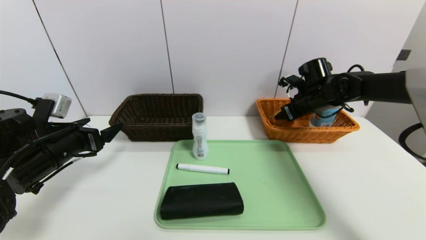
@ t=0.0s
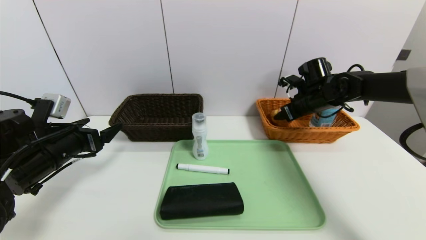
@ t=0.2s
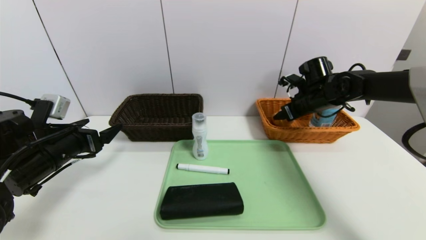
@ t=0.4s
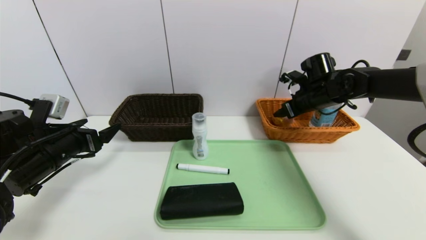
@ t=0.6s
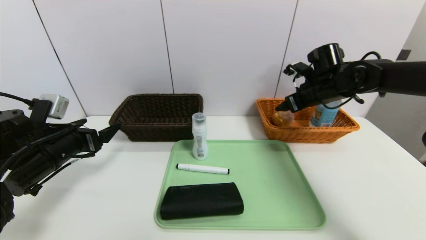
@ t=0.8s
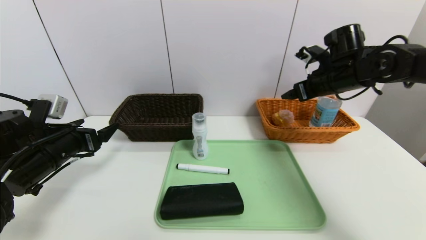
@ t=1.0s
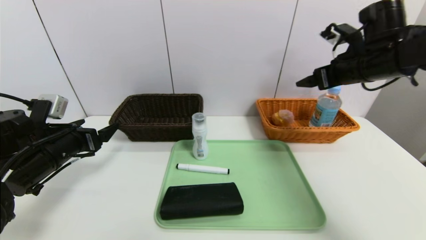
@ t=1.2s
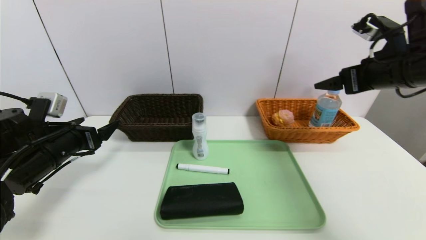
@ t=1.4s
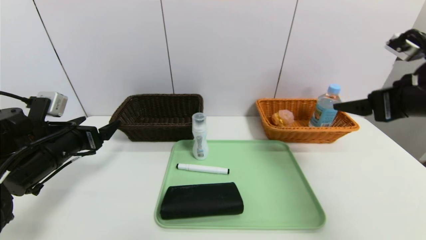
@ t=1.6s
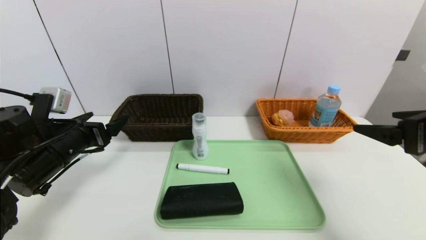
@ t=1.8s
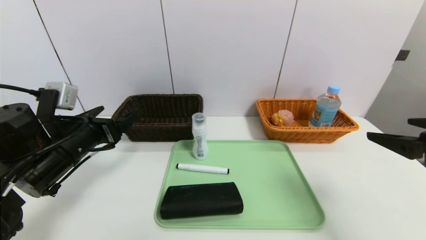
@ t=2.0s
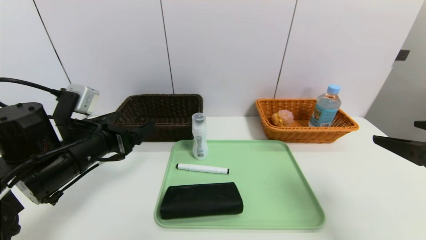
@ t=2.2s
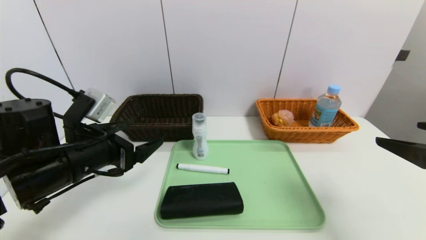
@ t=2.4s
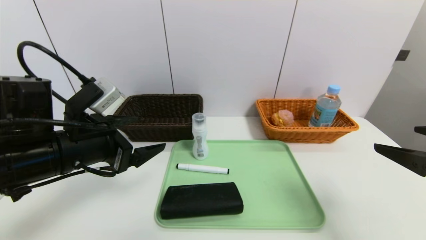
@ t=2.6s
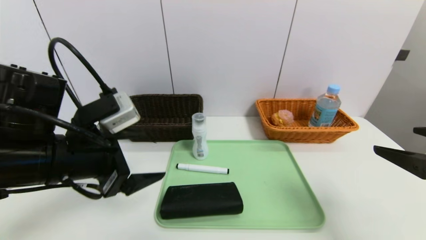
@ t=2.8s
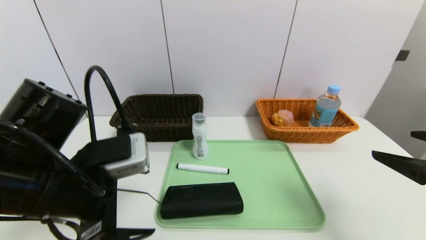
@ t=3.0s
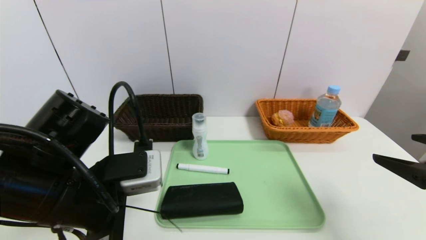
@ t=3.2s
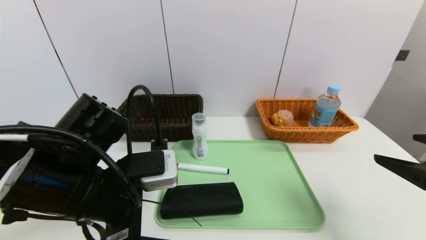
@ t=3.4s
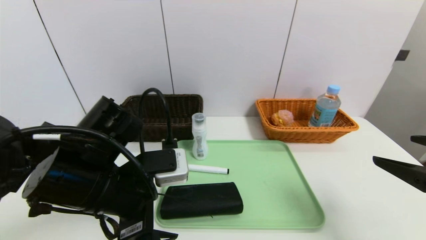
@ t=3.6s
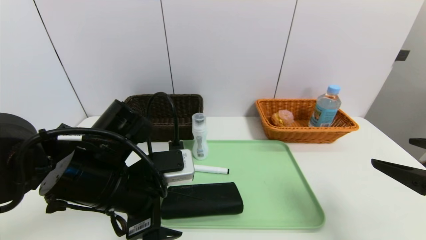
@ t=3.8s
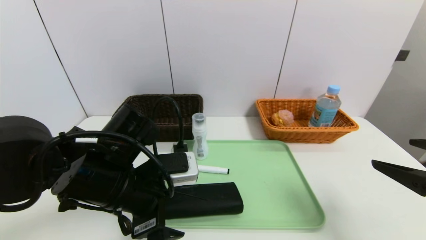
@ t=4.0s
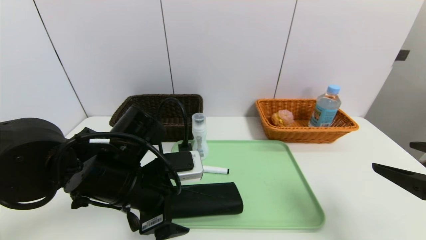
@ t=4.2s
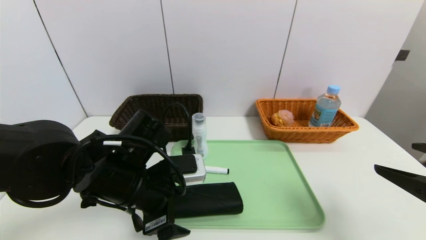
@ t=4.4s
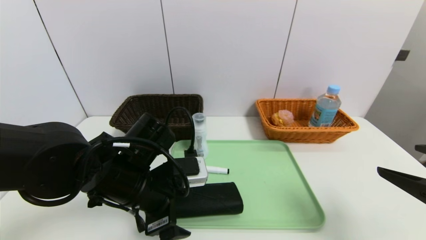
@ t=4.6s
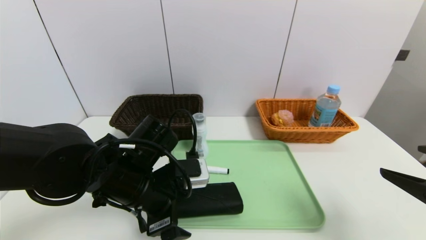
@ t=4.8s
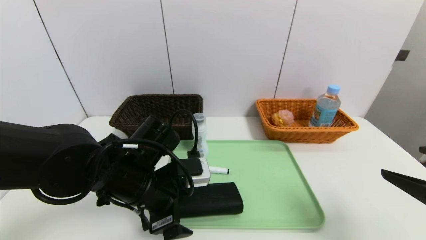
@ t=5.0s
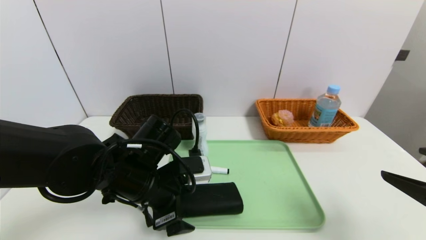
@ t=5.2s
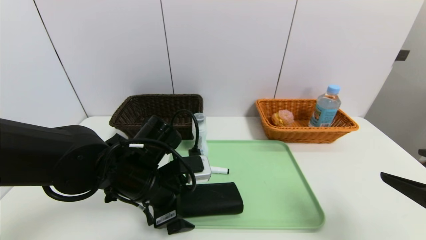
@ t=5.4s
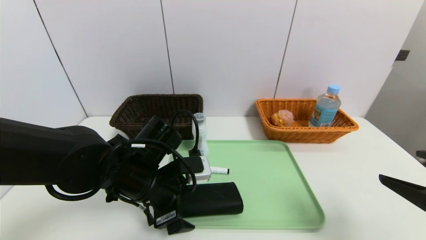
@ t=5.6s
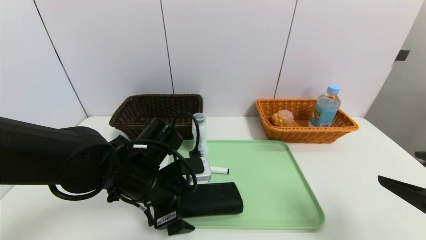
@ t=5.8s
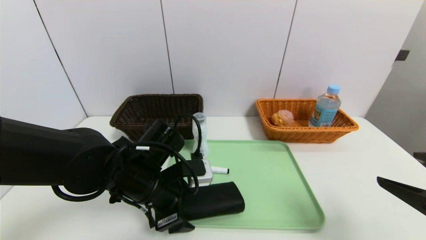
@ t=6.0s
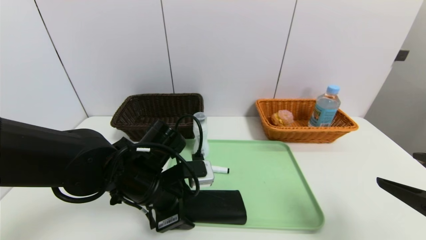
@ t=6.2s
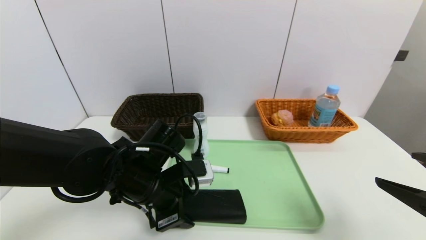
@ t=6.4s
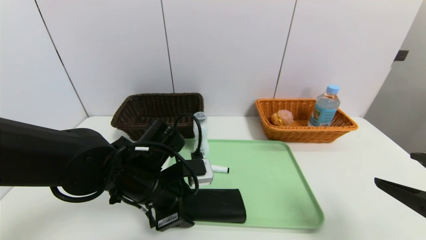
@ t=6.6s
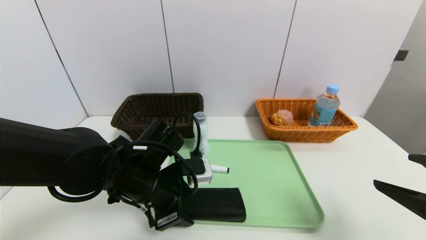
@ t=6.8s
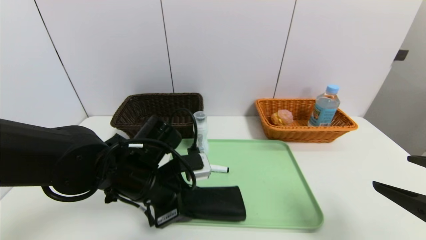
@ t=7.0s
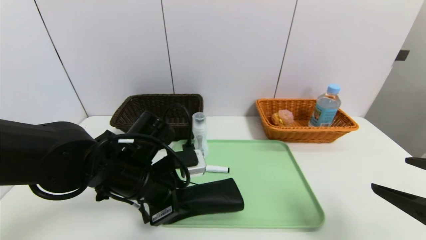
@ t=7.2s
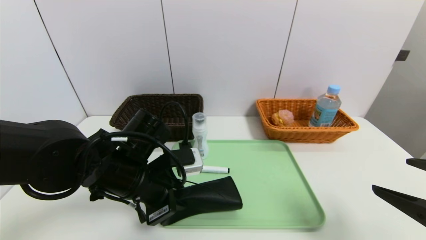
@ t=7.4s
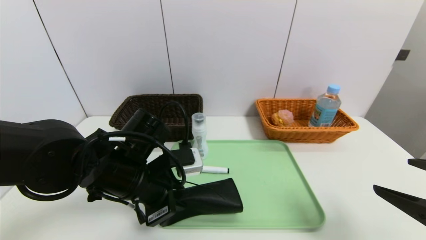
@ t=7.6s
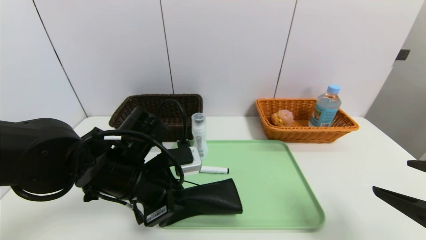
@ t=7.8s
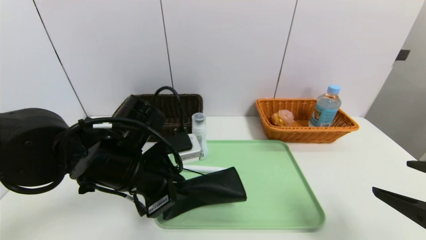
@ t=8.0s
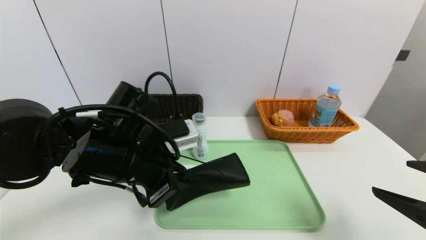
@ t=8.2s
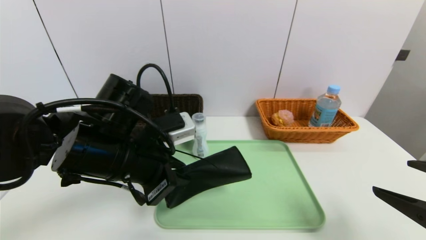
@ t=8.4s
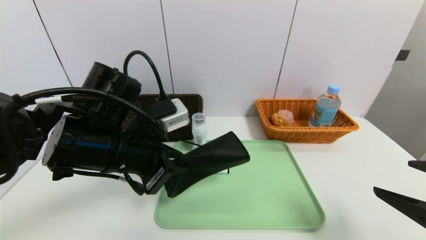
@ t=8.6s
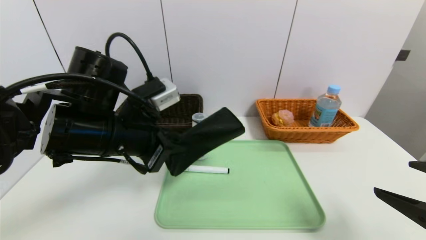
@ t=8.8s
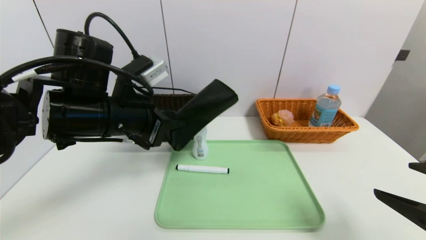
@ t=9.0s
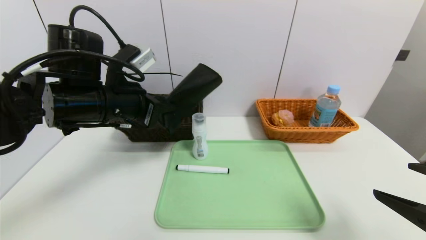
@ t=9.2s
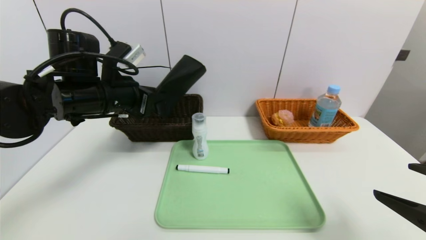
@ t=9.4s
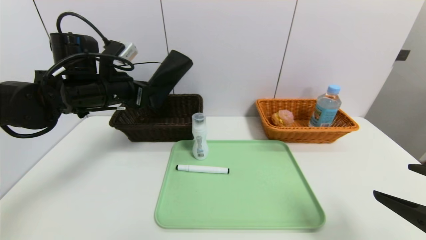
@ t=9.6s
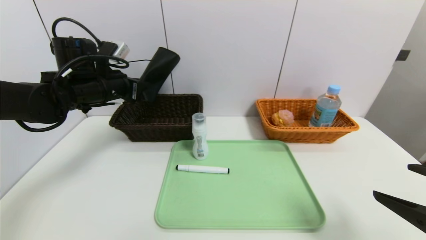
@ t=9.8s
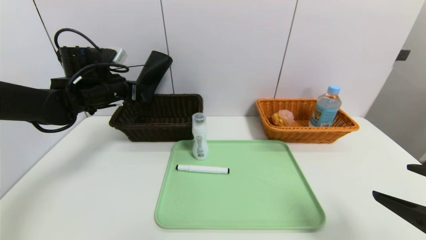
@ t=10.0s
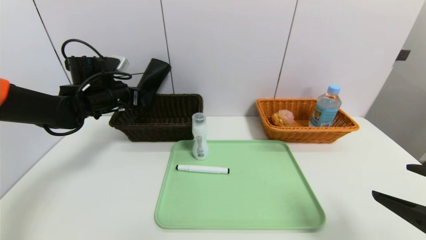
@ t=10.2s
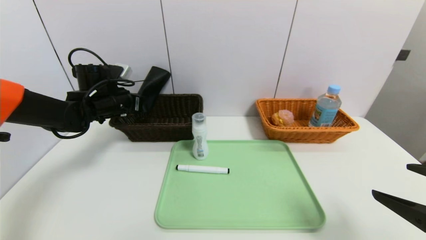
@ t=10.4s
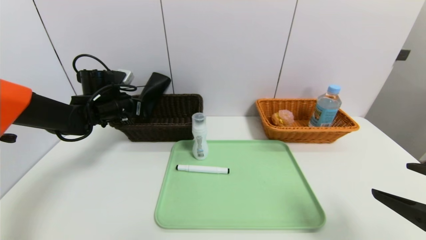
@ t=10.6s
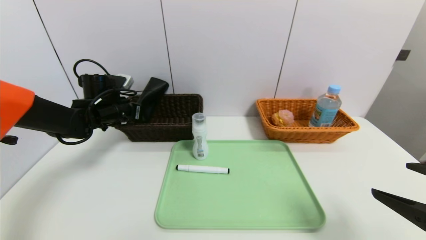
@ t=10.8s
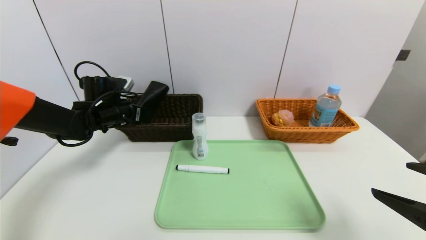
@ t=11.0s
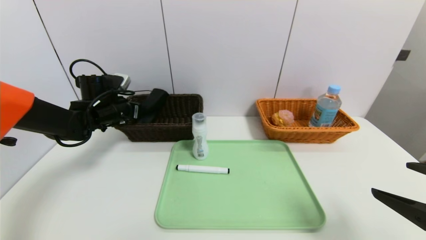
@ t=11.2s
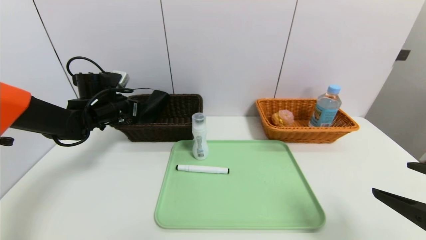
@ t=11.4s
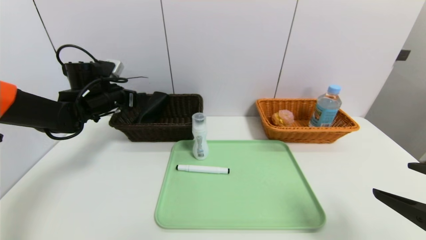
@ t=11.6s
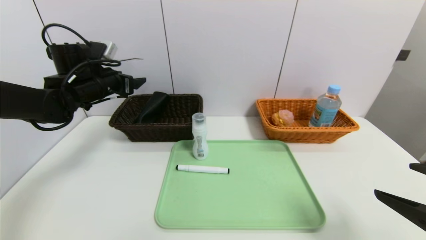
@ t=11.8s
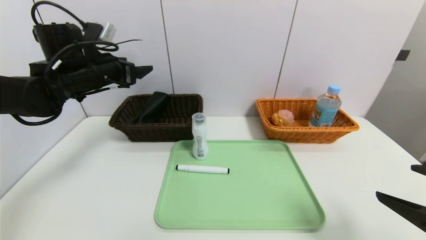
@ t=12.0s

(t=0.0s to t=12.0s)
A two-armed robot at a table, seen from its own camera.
Task of the whole recording: place the food in the right basket with the right gripper, and place the non food items in the left basket with the left gripper.
Step, t=1.0s - t=11.6s: Grasp the glasses case and put it in the left basket.
t=0.0s - t=1.6s: The right gripper is displaced backward and upward by roughly 25 cm.
t=1.6s - t=3.0s: The left gripper goes about 15 cm to the right, backward and upward. The right gripper goes about 10 cm backward.
t=3.0s - t=4.4s: The left gripper travels to the right, downward and forward by some 10 cm.
t=4.4s - t=6.0s: There are only small adjustments of the grippers.
t=6.0s - t=7.6s: The left gripper closes.
t=7.6s - t=9.0s: The left gripper goes some 10 cm upward.
t=9.0s - t=10.4s: The left gripper goes approximately 20 cm forward, to the left and downward.
t=10.4s - t=12.0s: The left gripper moves upward and backward, roughly 10 cm, and opens.

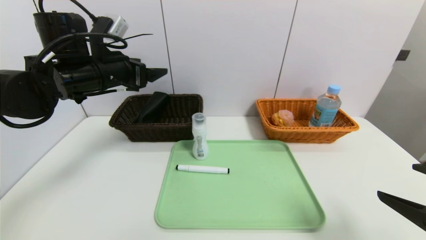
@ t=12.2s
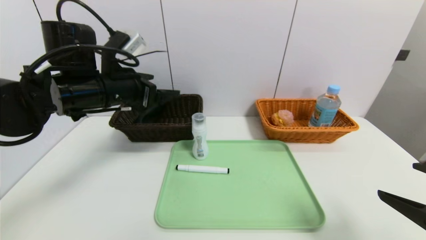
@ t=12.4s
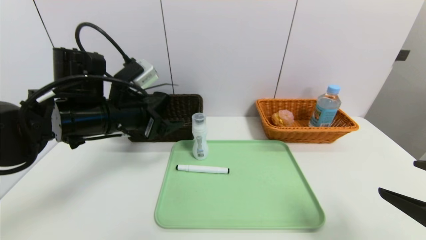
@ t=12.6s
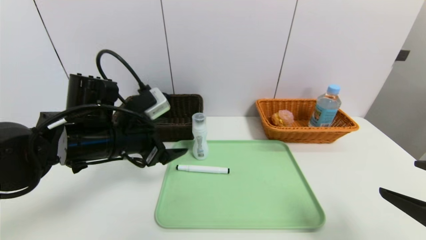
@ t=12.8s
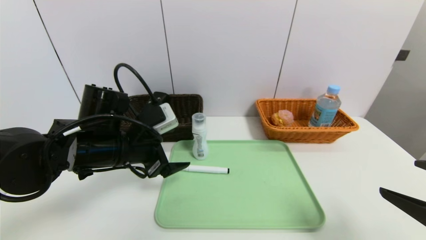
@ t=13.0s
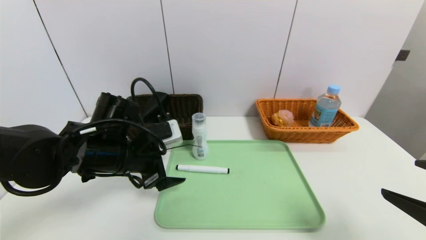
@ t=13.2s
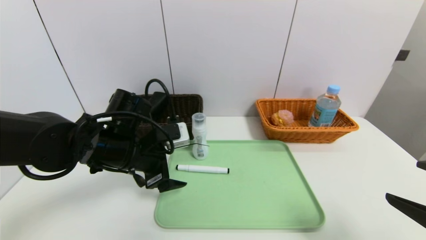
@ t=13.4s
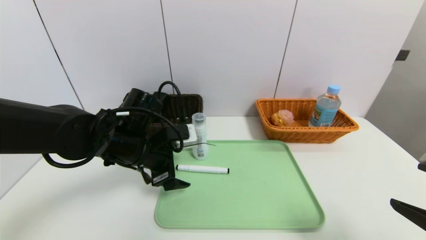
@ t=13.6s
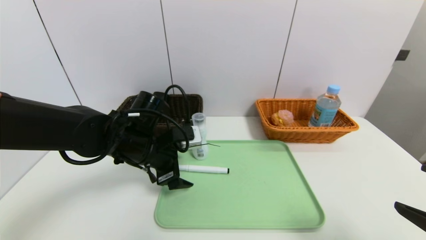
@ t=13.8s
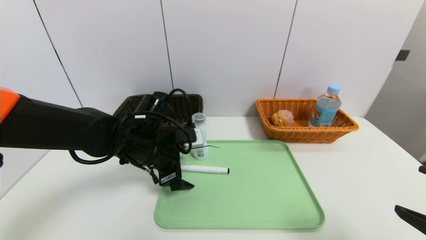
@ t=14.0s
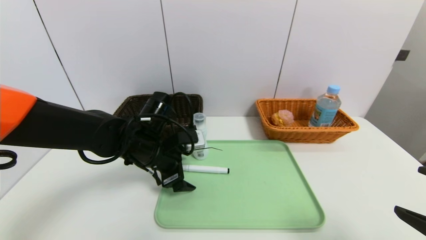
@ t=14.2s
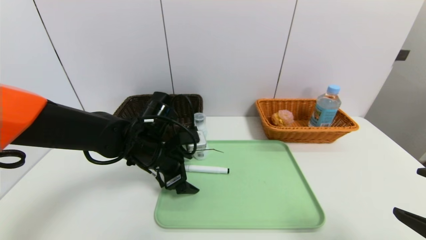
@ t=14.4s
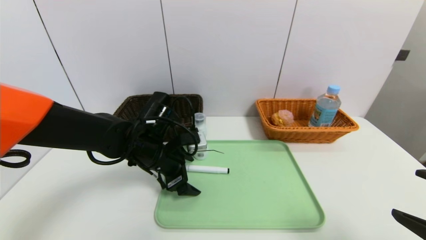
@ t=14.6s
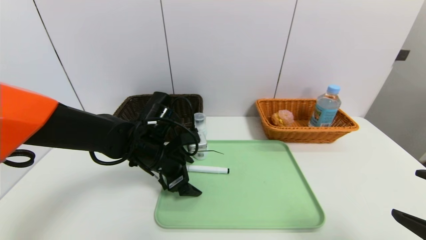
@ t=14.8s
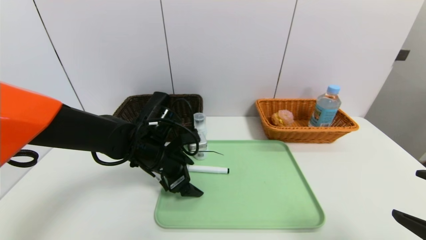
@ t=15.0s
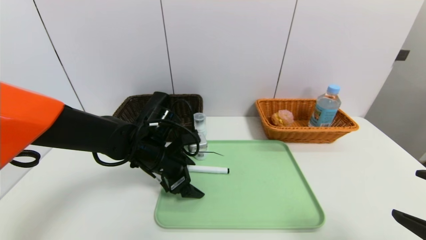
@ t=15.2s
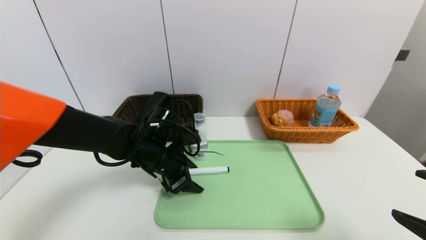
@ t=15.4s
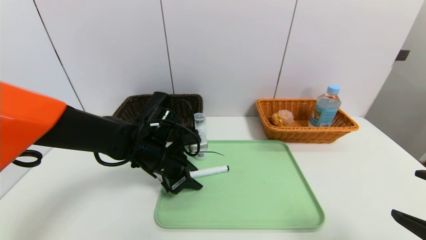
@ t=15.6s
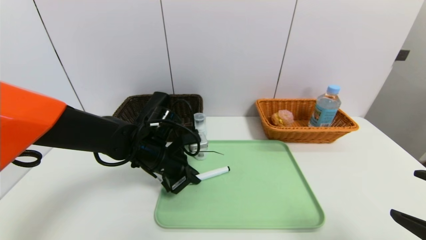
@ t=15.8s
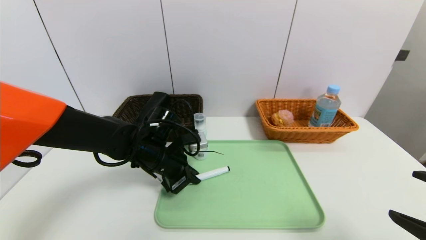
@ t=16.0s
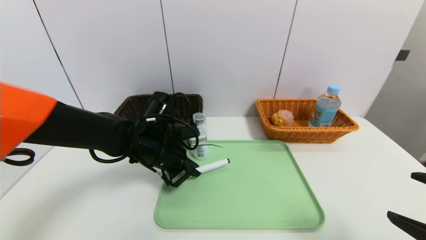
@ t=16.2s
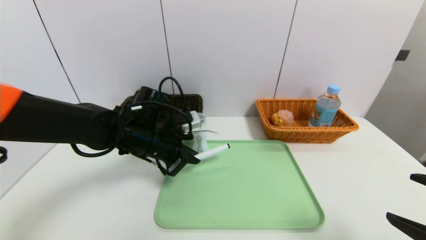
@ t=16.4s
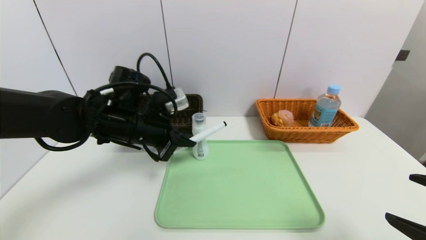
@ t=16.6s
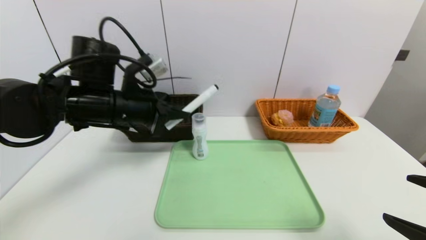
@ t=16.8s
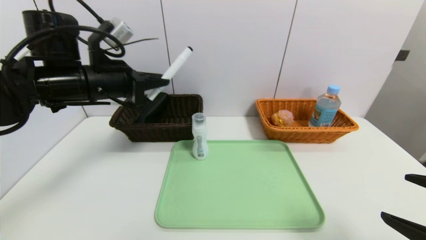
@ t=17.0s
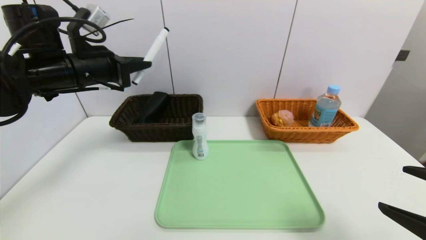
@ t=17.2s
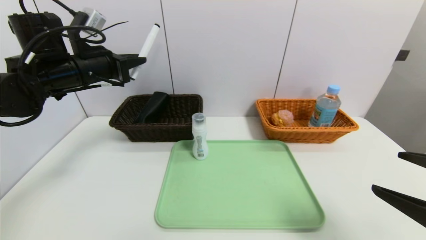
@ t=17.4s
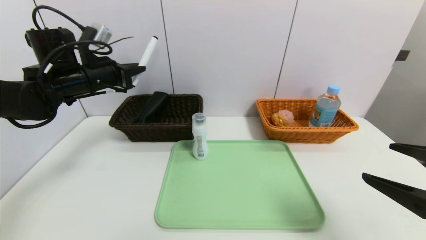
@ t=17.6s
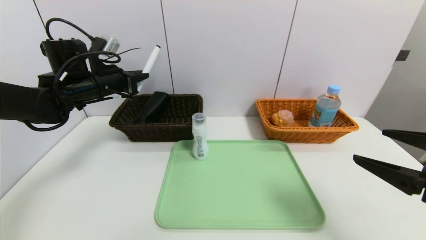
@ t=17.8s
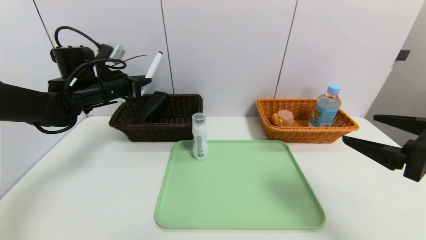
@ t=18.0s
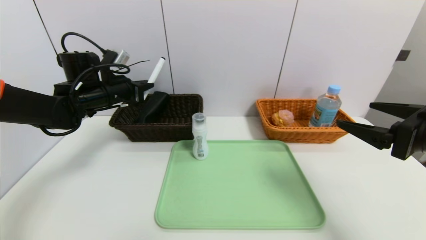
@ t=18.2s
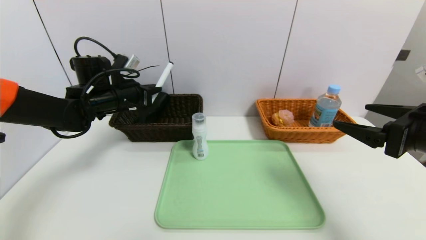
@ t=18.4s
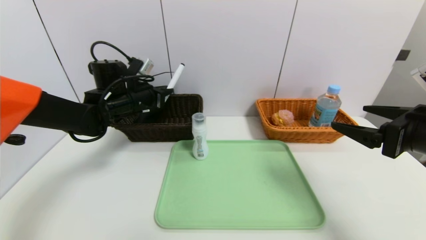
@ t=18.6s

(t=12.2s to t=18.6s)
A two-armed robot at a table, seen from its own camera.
Task of the whole recording: place the food in the right basket with the right gripper, and place the non food items in the left basket with the left gripper.
t=12.2s - t=13.8s: The left gripper shifts about 15 cm downward and to the right.
t=13.8s - t=15.4s: The grippers make only small movements.
t=15.4s - t=17.0s: The left gripper moves upward and to the left, about 20 cm, and closes up.
t=17.0s - t=18.6s: The left gripper shifts approximately 15 cm forward and downward. The right gripper moves forward, about 10 cm.
